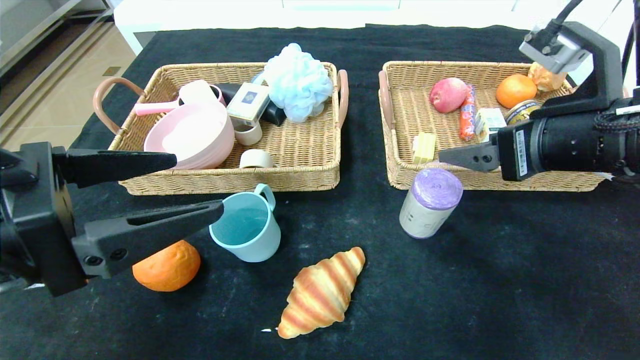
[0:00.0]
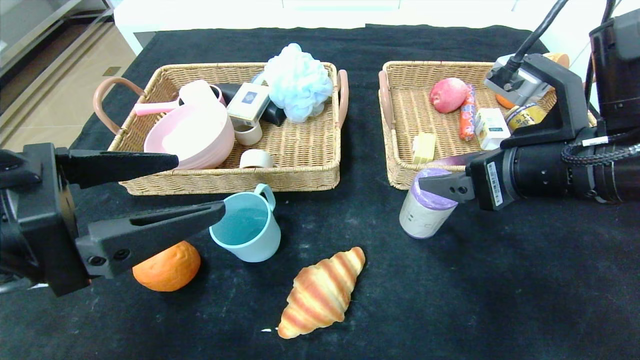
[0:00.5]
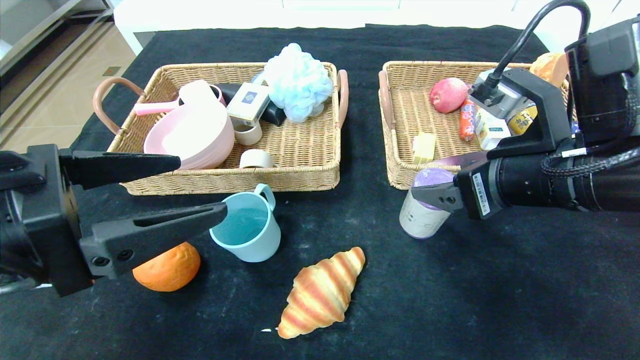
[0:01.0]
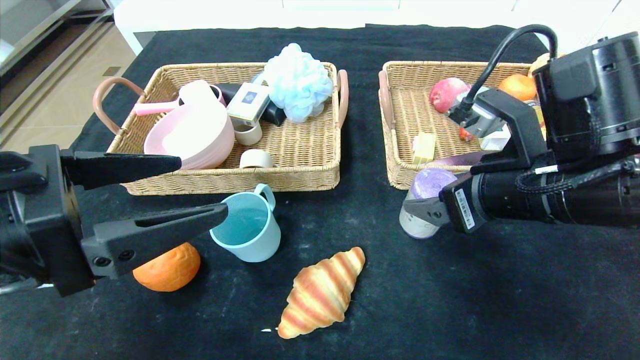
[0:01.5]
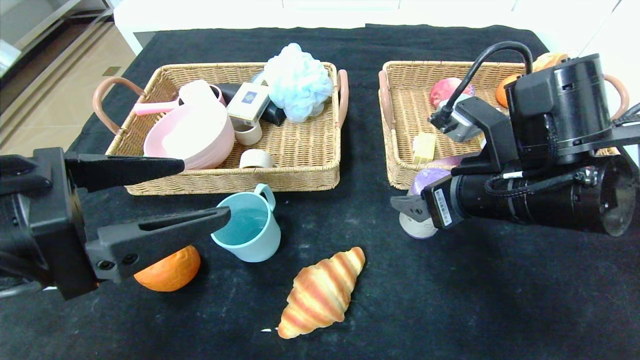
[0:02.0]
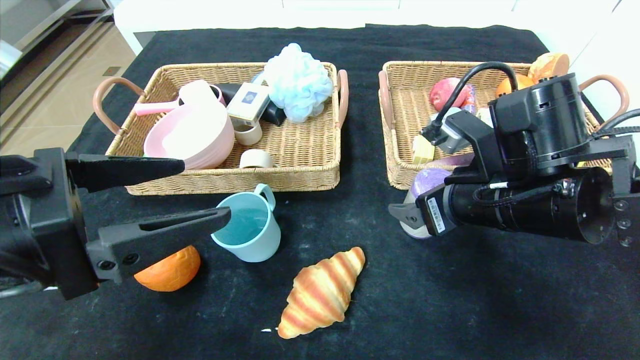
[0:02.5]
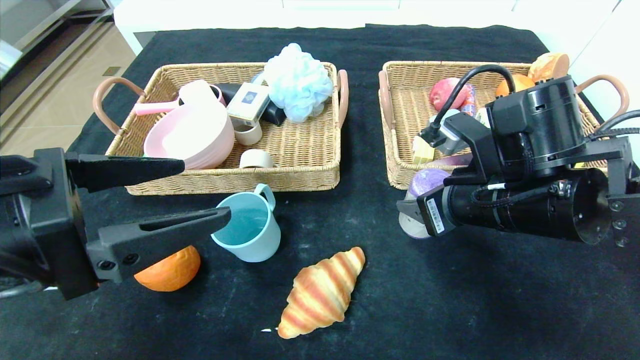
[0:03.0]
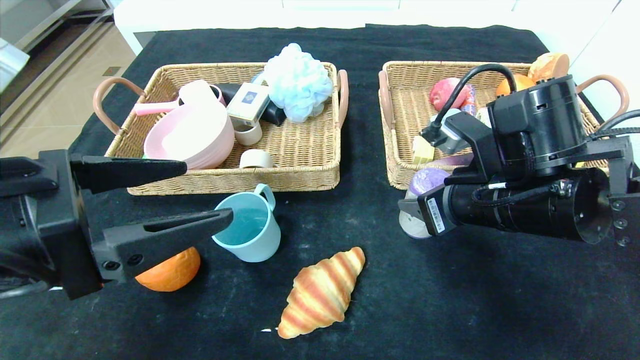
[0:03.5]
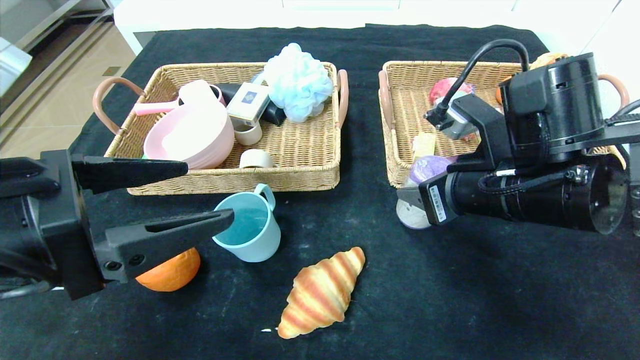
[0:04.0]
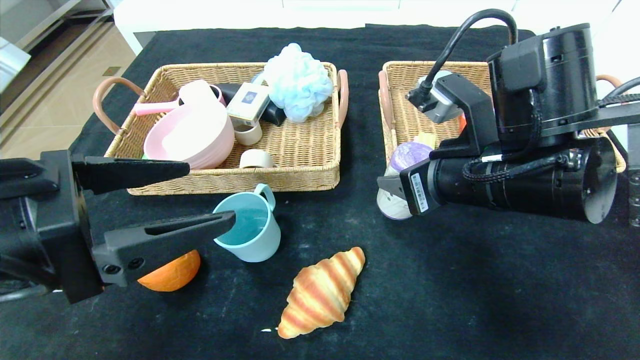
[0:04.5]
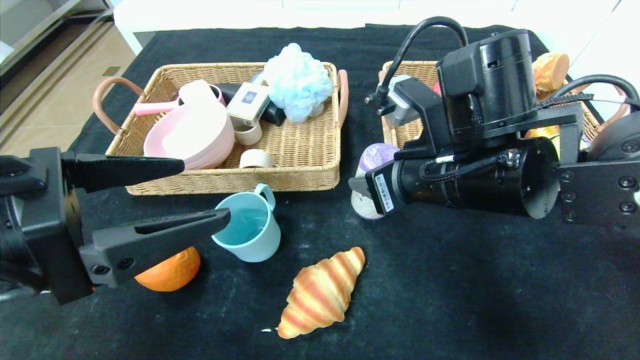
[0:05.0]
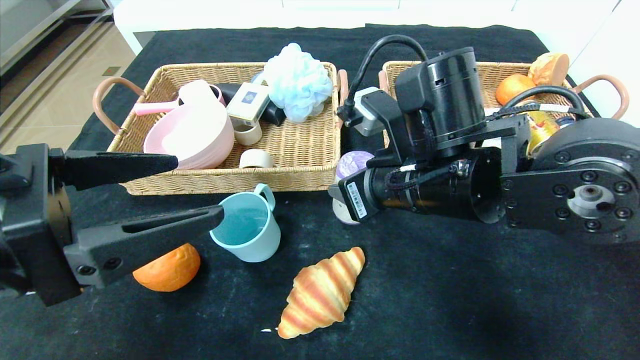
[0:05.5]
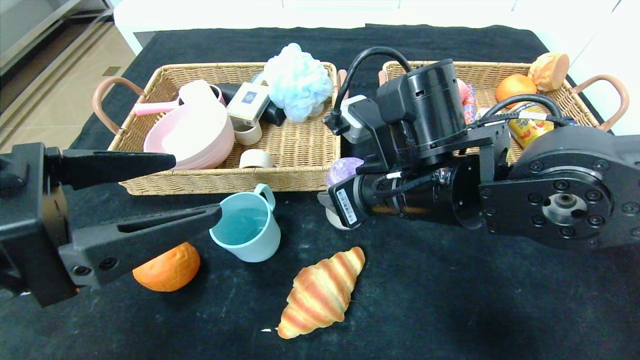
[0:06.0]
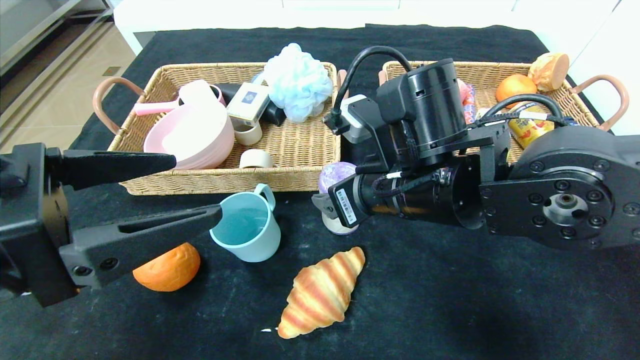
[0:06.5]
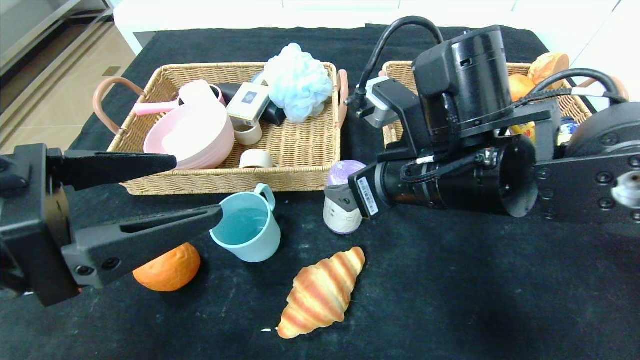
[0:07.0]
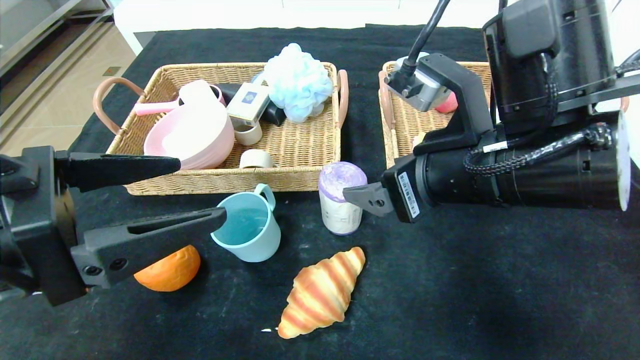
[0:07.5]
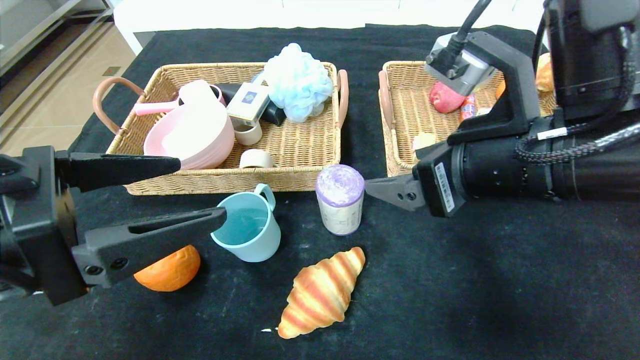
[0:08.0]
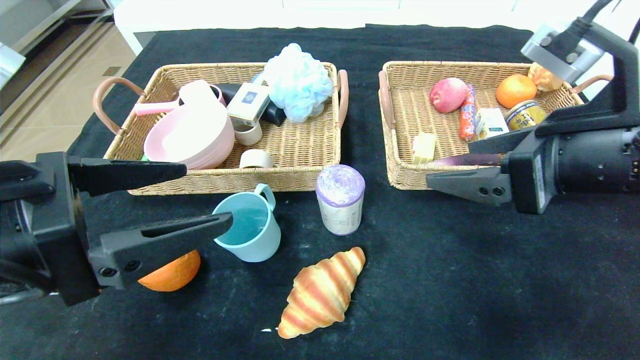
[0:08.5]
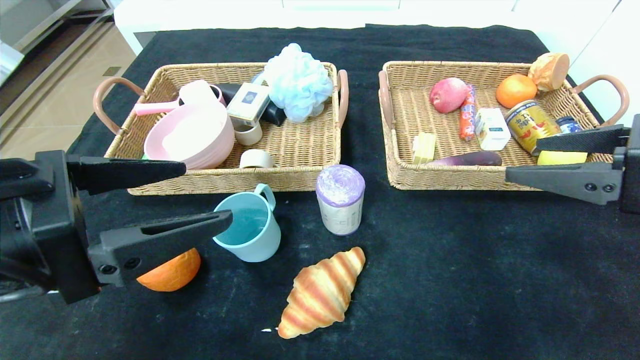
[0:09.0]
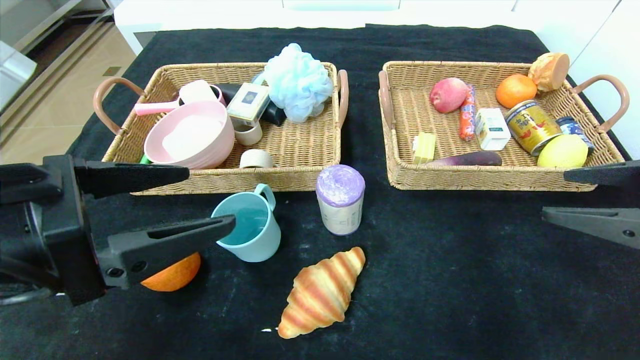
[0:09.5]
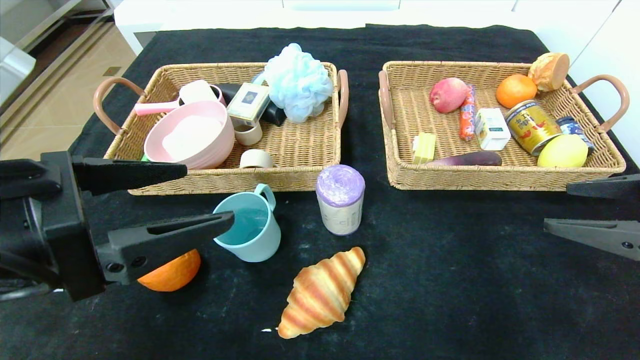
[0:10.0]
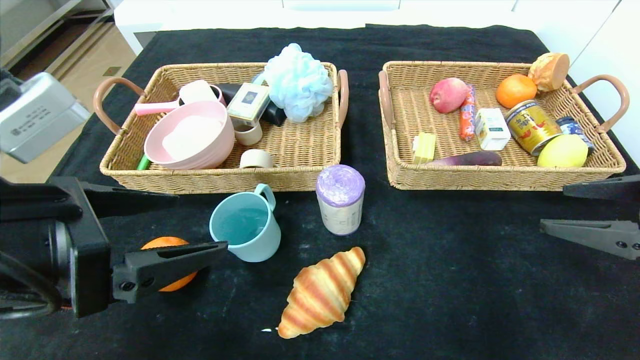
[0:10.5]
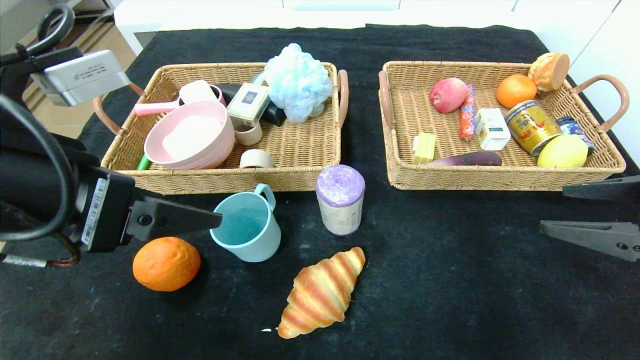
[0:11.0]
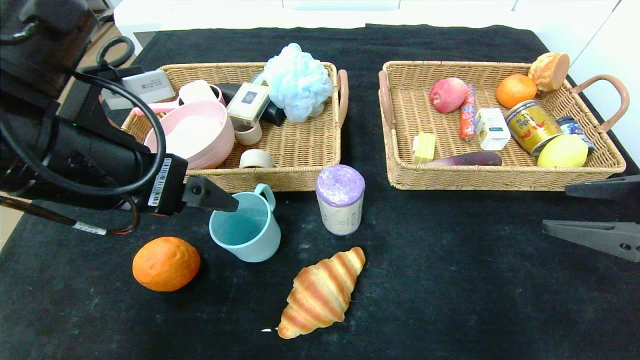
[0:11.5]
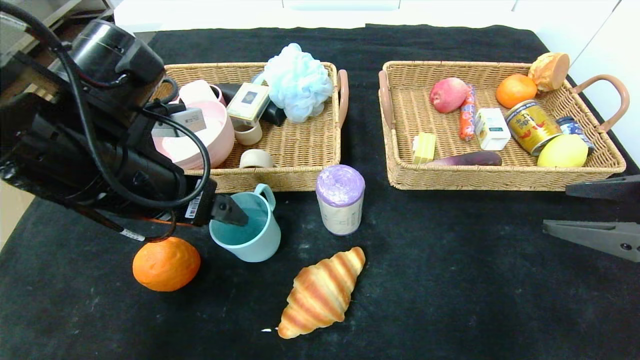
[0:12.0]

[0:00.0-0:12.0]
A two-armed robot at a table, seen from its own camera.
Step, 0:00.0 to 0:06.5: Place the purple garbage bag in the center of the table.
0:00.0 to 0:02.0: The right gripper goes approximately 10 cm to the left and downward.
0:02.0 to 0:04.0: The right gripper closes.
0:04.0 to 0:06.0: The right gripper is displaced to the left by approximately 10 cm.
0:06.0 to 0:08.0: The right gripper is displaced to the right and upward by some 10 cm, and opens up.
0:08.0 to 0:10.0: The right gripper goes roughly 20 cm to the right.
0:10.0 to 0:12.0: The left gripper is displaced forward by approximately 10 cm.

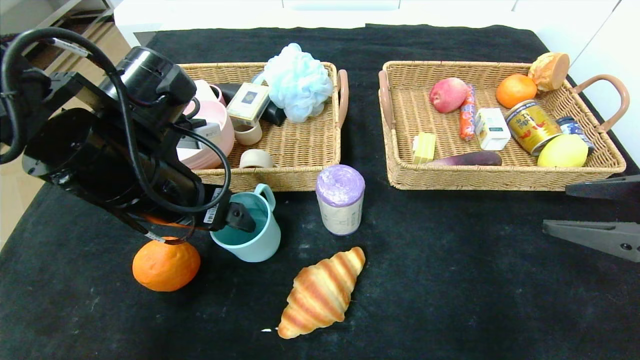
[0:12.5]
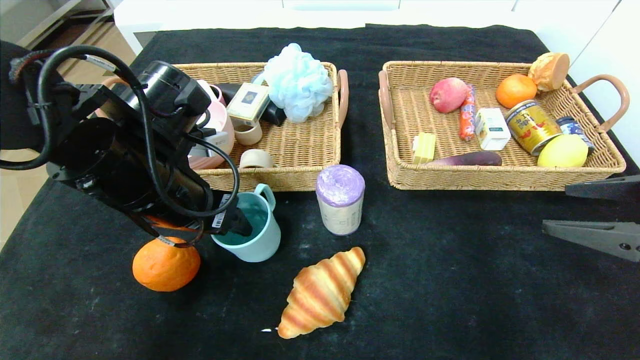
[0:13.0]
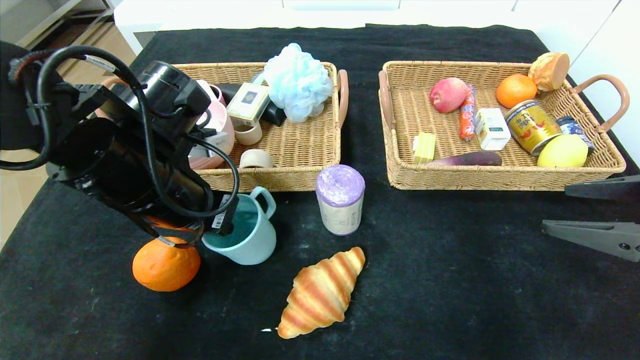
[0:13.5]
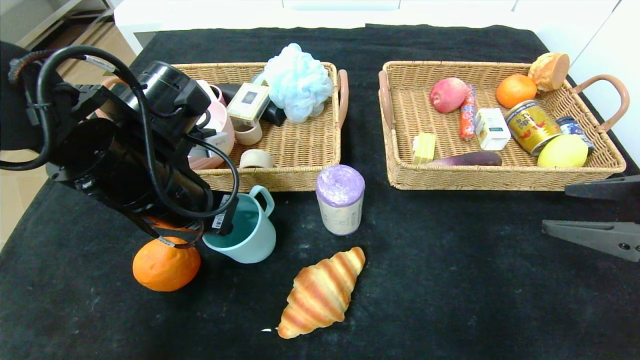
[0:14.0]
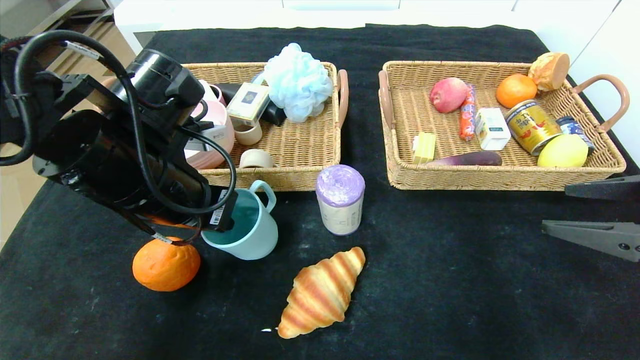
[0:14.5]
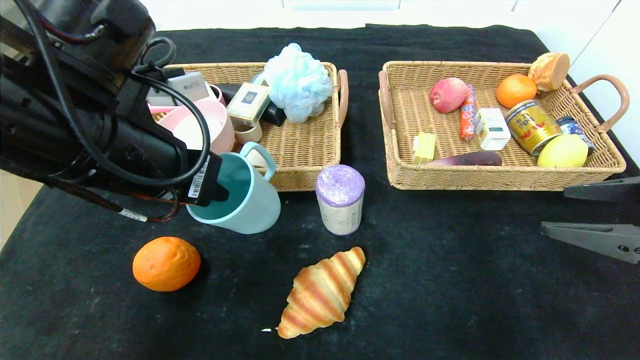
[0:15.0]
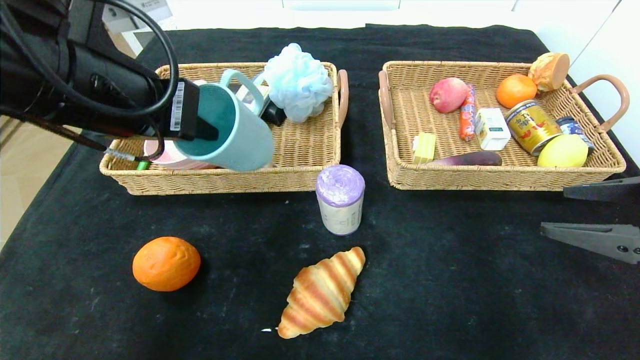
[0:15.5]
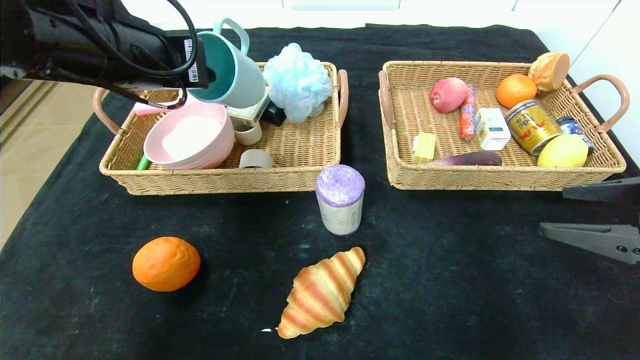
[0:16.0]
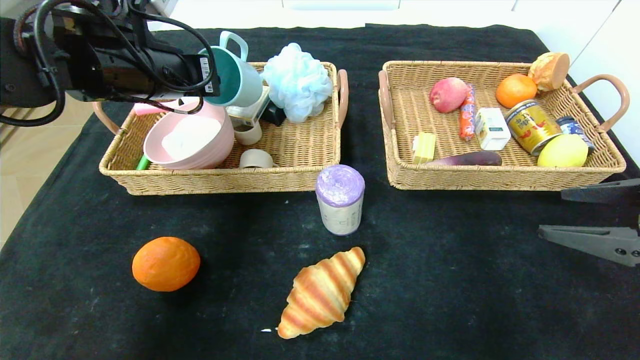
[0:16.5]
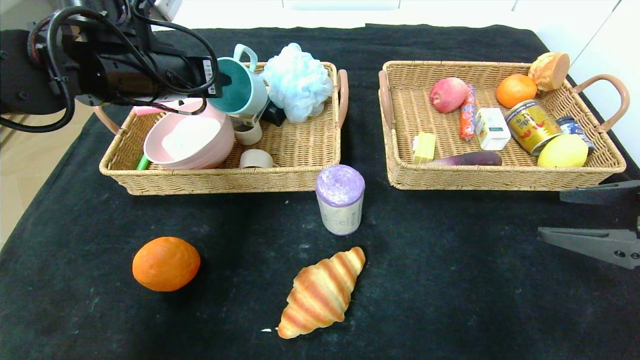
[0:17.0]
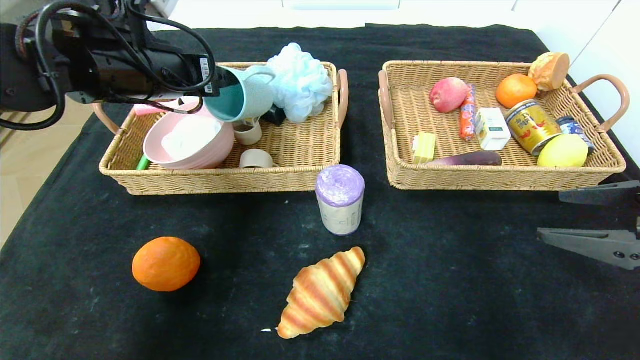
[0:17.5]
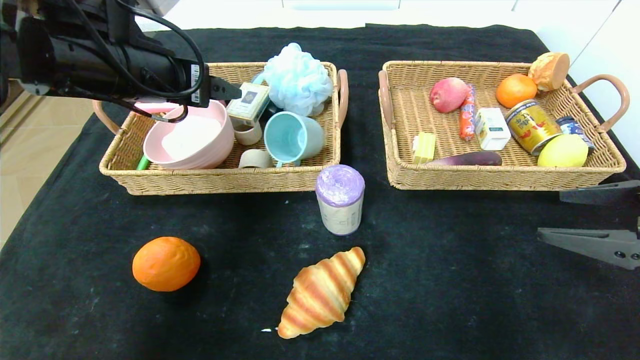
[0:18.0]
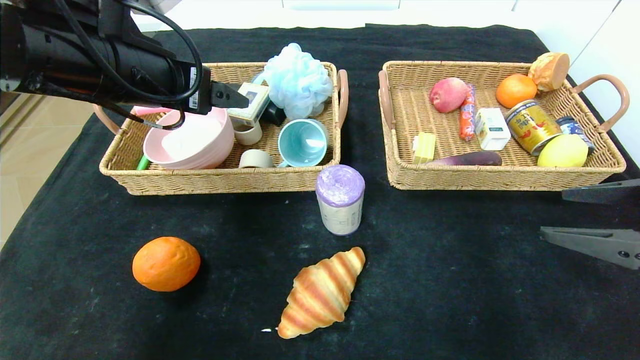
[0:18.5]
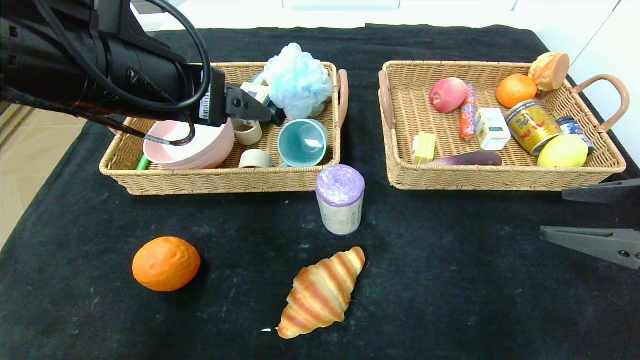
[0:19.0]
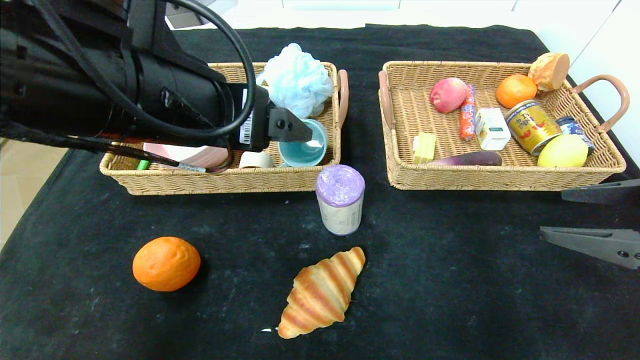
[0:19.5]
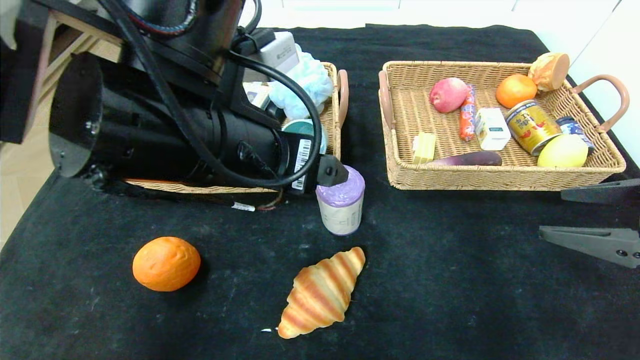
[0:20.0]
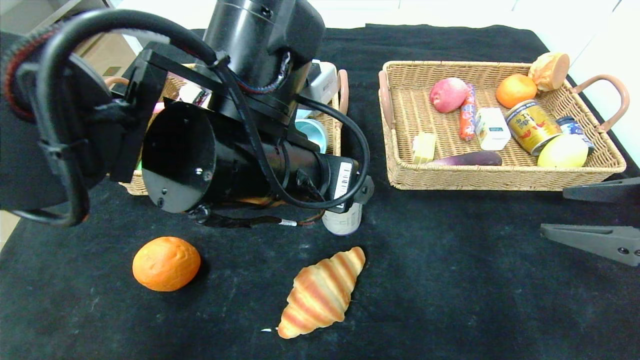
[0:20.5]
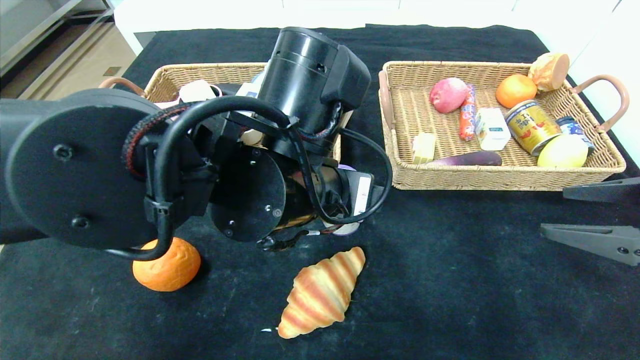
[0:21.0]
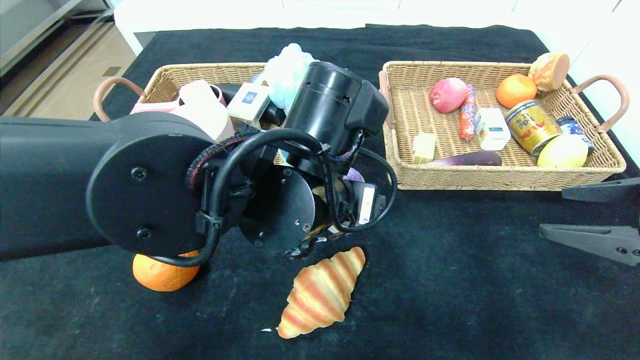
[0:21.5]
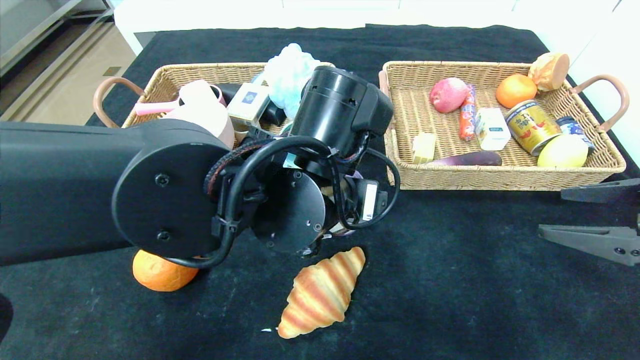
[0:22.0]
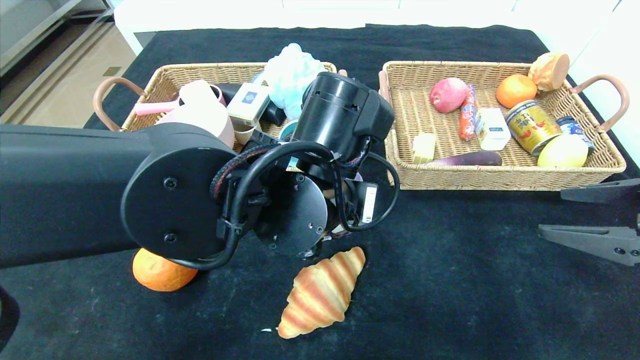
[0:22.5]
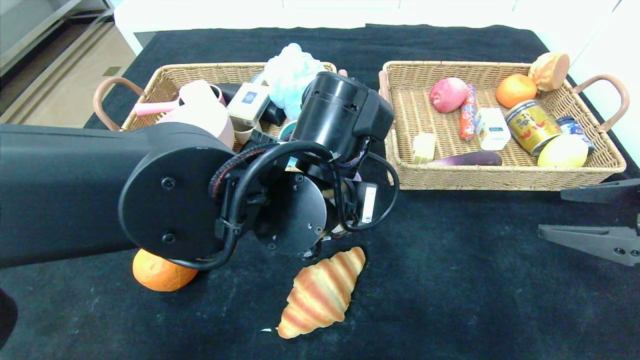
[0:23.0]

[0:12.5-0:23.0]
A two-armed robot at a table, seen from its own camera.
Step, 0:12.5 to 0:17.5: Grasp the blue cup and put it in the left basket.
0:12.5 to 0:14.5: The left gripper closes.
0:14.5 to 0:16.5: The left gripper heads forward and upward, covering about 10 cm.
0:16.5 to 0:19.0: The left gripper heads backward, covering some 10 cm, and opens up.
0:19.0 to 0:21.0: The left gripper goes approximately 15 cm to the right and downward.
0:21.0 to 0:23.0: The left gripper closes its fingers.
